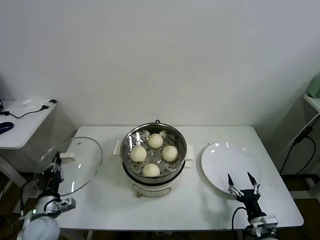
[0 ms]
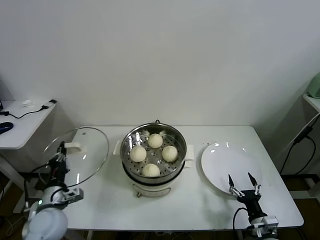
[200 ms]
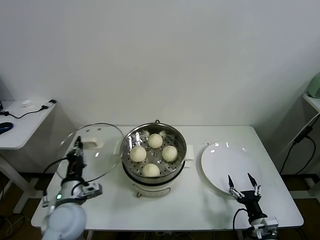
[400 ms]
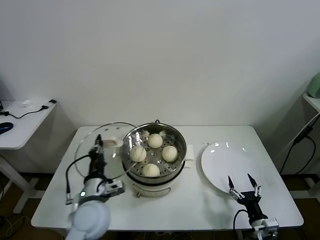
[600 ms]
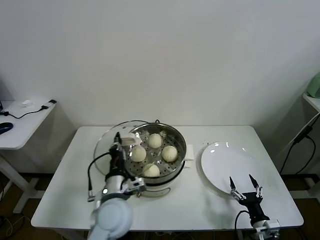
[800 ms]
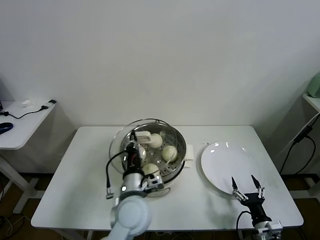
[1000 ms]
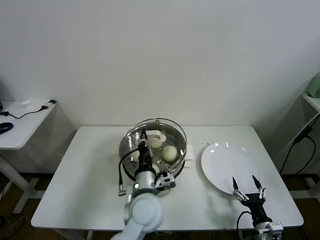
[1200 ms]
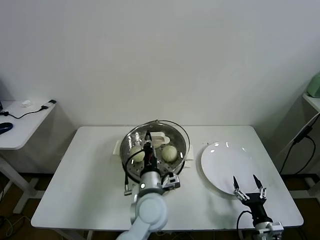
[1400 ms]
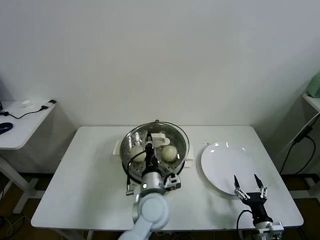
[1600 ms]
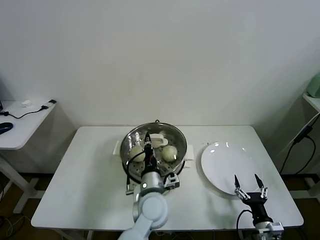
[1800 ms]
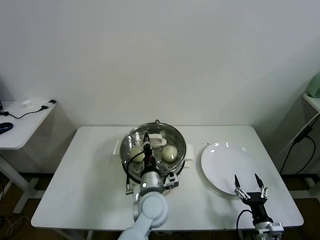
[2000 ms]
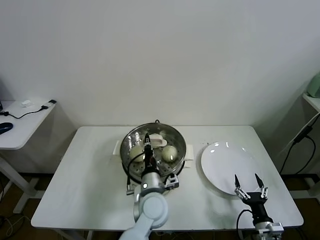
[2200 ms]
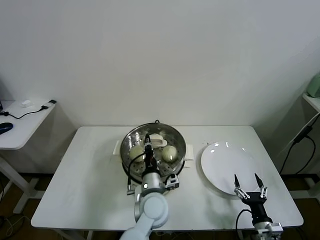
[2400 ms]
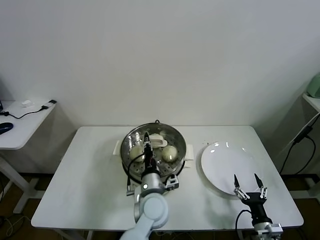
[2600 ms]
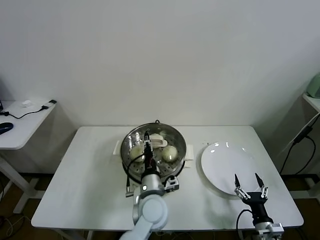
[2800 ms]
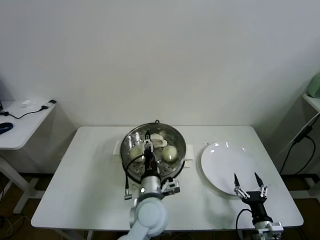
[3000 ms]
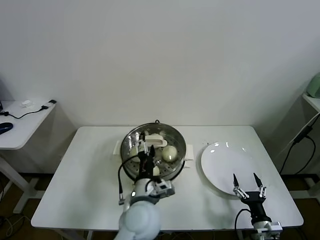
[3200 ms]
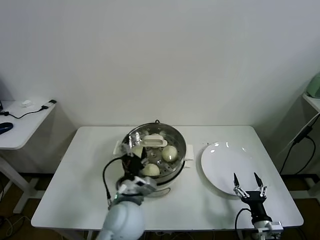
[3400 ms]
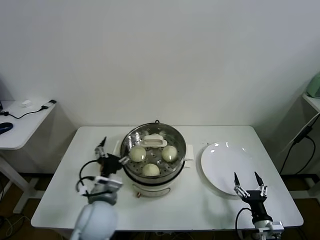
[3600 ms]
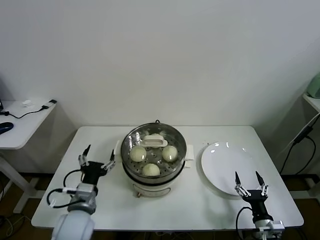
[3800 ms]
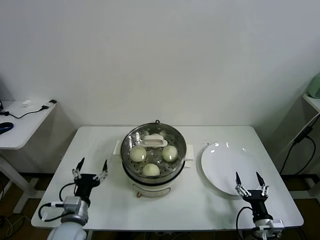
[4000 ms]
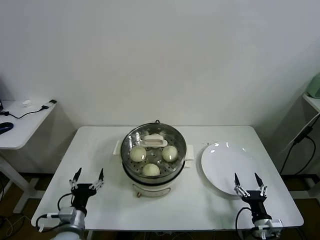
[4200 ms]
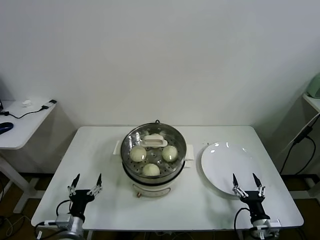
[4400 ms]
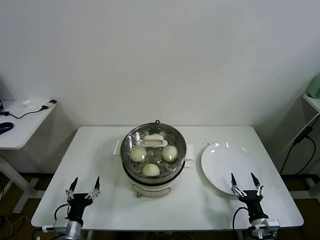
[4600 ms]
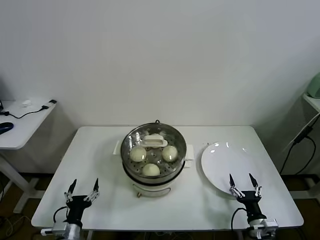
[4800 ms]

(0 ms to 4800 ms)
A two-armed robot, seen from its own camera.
Task of the whole recording: take steamed baozi put them in steamer.
Step, 0 ms - 2800 ms: Place the pot lid on the steamer with left gripper.
0 ms - 1600 ms: The left gripper travels to the right by approximately 35 cm.
1600 ms - 3200 ms: The left gripper opens.
3200 ms - 4800 ms: The left gripper goes about 30 cm to the left and downward.

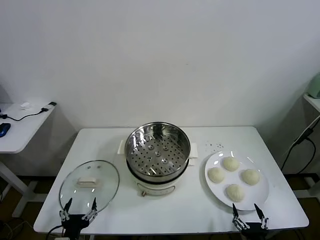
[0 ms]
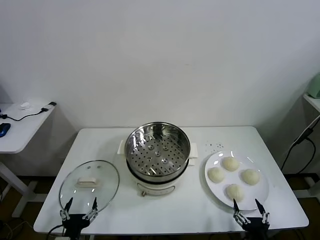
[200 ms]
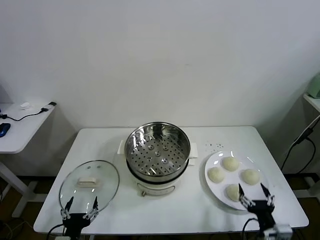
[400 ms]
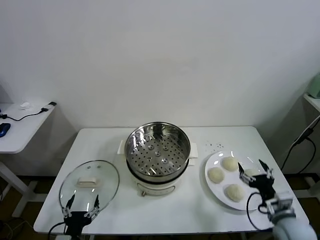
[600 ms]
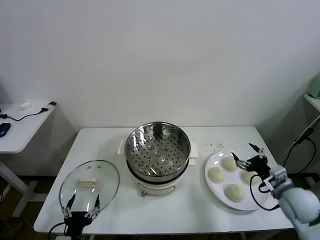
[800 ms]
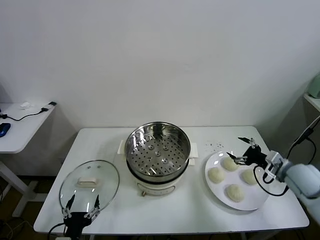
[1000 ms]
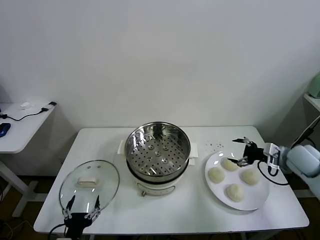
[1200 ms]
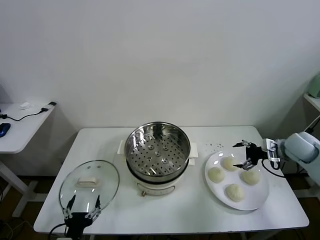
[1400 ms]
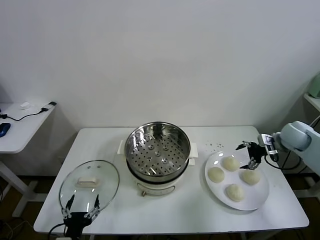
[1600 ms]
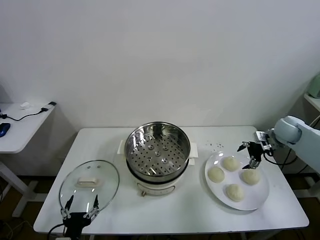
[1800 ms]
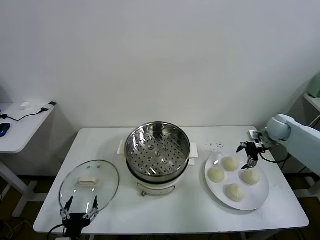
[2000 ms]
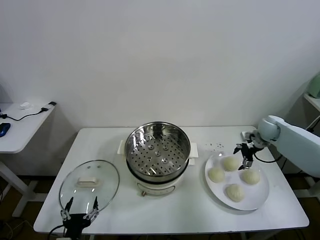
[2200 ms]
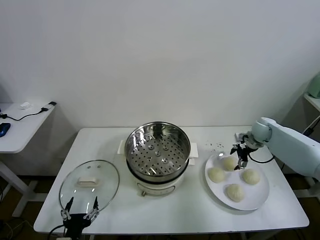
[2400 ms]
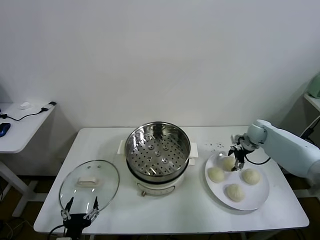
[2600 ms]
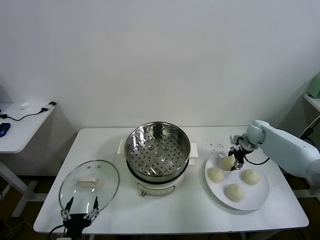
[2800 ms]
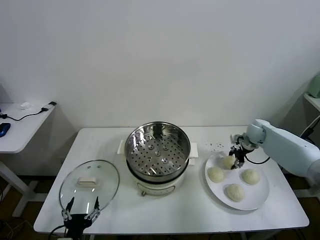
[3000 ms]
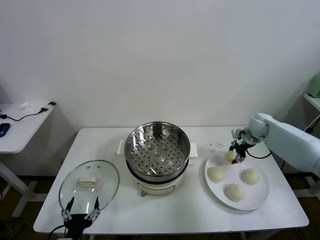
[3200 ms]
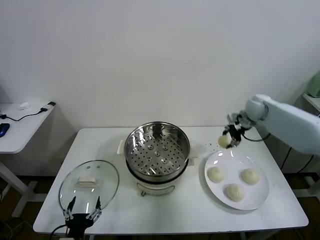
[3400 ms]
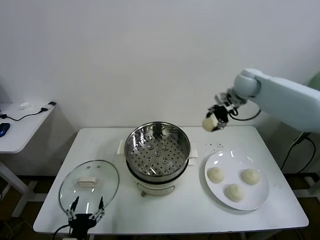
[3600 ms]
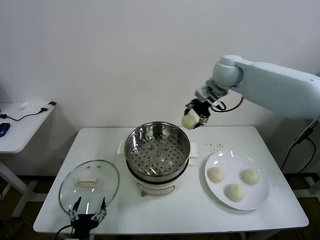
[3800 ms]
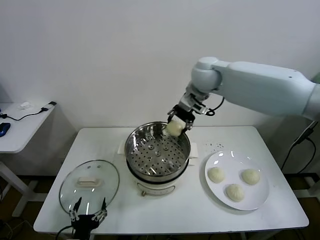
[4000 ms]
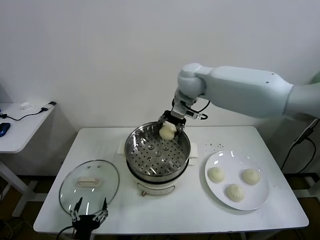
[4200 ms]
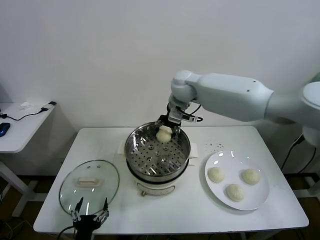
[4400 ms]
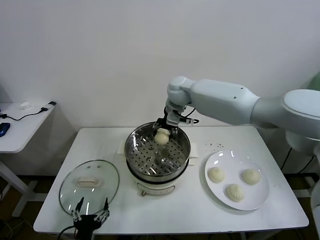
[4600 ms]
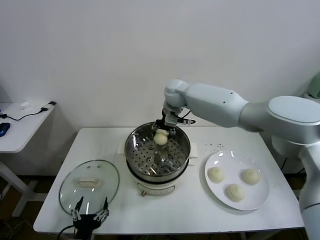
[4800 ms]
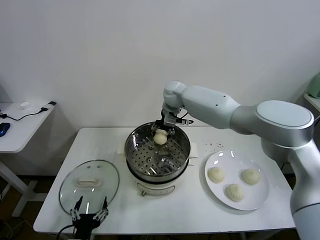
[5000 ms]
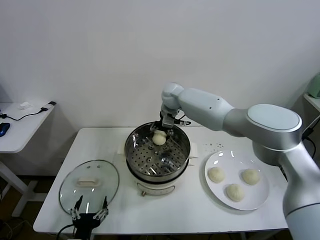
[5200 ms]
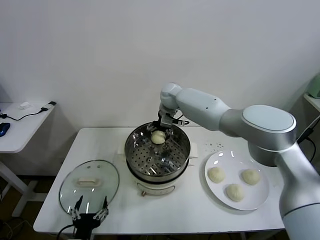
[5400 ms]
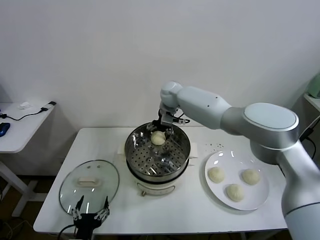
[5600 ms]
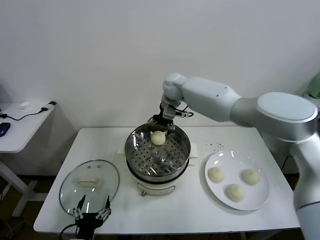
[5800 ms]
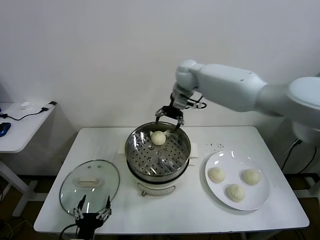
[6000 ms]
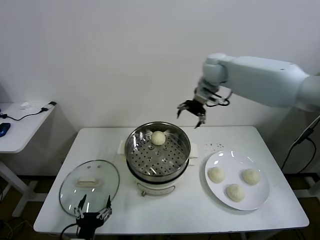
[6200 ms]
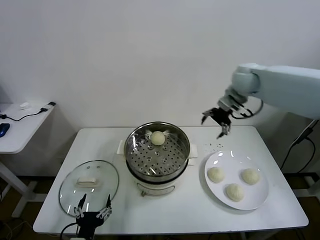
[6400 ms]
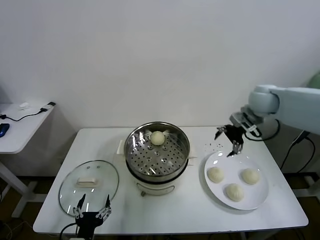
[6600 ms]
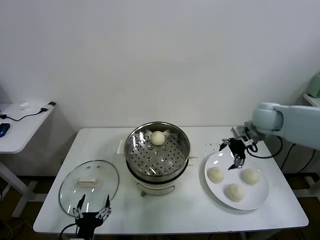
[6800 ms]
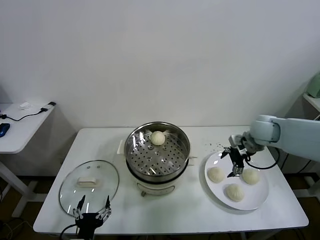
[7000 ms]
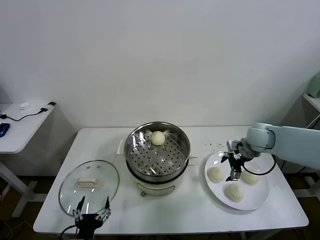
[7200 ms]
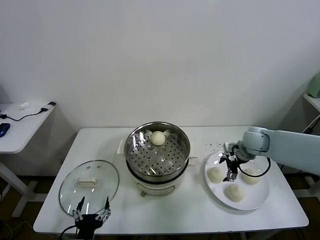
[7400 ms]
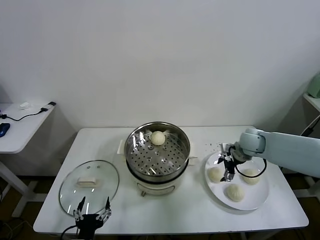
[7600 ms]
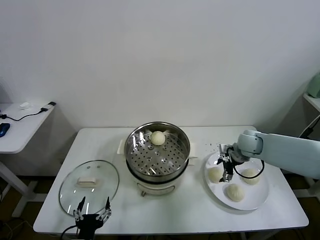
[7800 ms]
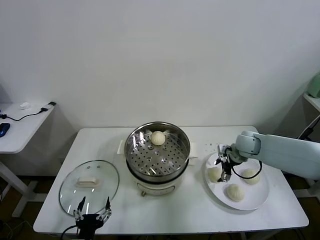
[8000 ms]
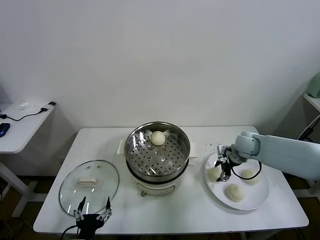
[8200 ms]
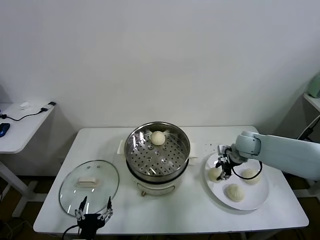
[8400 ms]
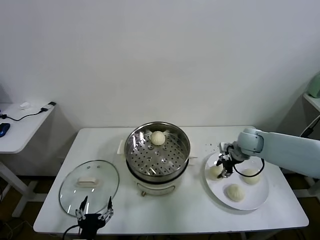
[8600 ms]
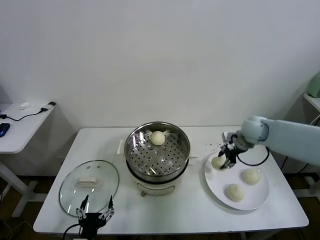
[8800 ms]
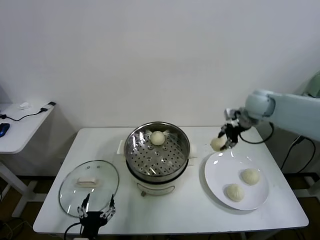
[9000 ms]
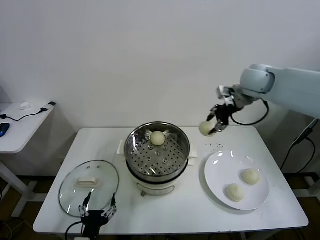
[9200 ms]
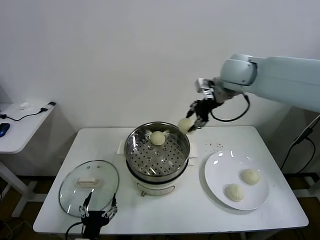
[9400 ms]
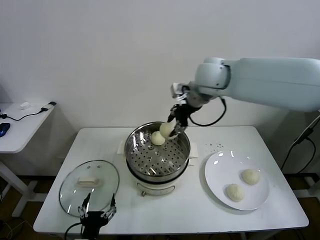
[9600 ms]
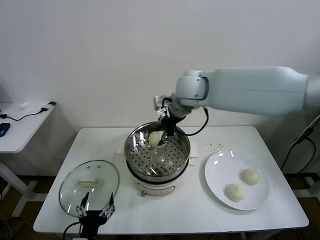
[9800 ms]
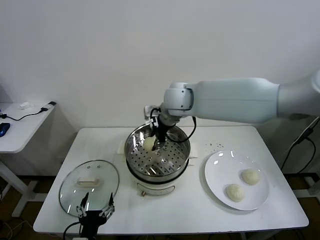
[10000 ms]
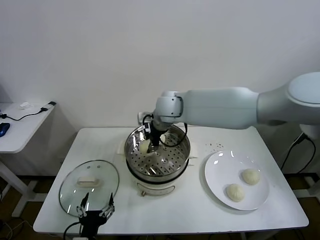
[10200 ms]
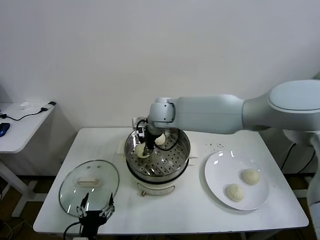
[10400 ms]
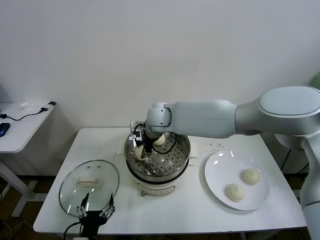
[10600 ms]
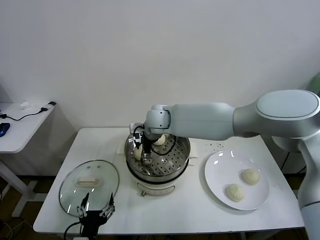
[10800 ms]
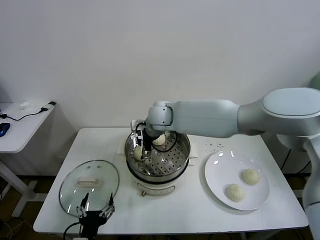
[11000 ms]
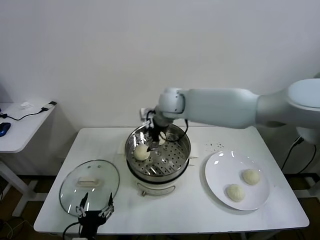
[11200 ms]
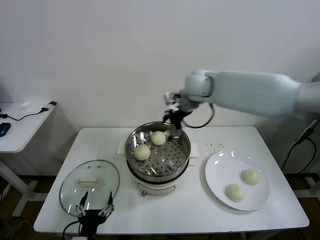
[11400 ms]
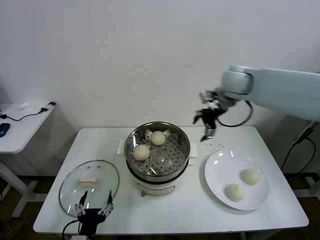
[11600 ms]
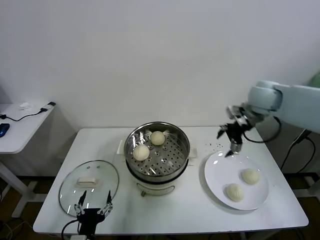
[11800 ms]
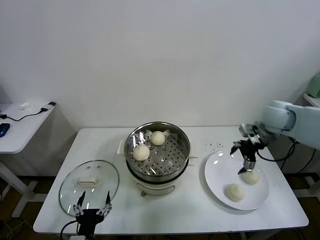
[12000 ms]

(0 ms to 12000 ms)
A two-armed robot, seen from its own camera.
Task of the whole recording: take steamed baozi put them in steamer.
Step, 0 ms - 2600 ms: Grasp the baozi in the plate with right gripper.
Step, 2800 ms - 5400 ms: Place the baozi on the steamer with right gripper.
Step, 5600 ms - 8200 ms: Grasp the baozi in the plate with right gripper.
Step, 8400 ms - 10800 ms: Place the baozi on the steamer with right gripper.
1600 ms - 3000 ms: The right gripper moves forward, to the left and downward, about 10 cm, and closes its fingers.
3000 ms - 4400 ms: The right gripper travels to the left and upward by about 40 cm.
4400 ms - 6000 ms: The right gripper travels to the right by some 5 cm, and opens up.
6000 ms - 7600 ms: The right gripper moves downward, to the right and backward, some 35 cm.
7600 ms - 9000 ms: The right gripper heads upward, covering approximately 20 cm, and closes up.
9000 ms - 10400 ms: The right gripper shifts roughly 30 cm to the left.
10400 ms - 12000 ms: The right gripper is displaced to the right by roughly 35 cm, and opens its fingers.

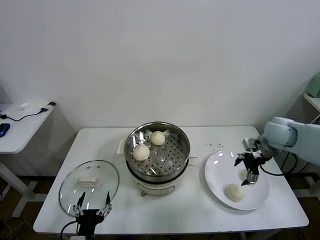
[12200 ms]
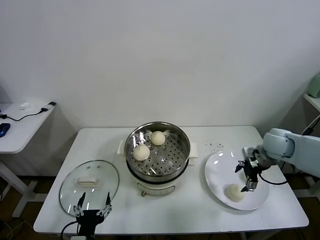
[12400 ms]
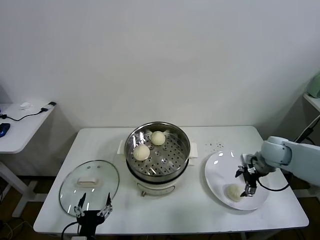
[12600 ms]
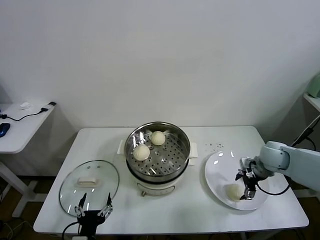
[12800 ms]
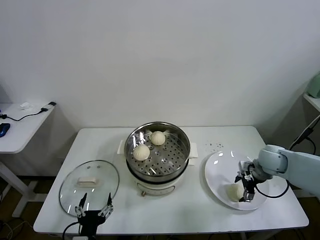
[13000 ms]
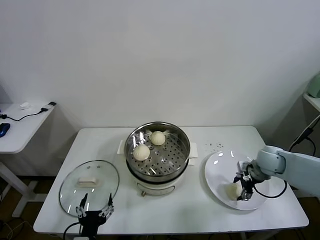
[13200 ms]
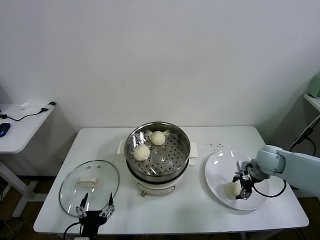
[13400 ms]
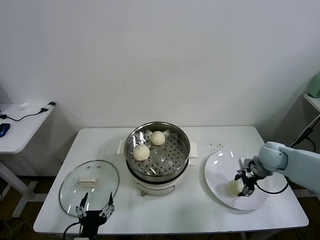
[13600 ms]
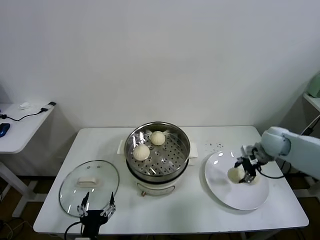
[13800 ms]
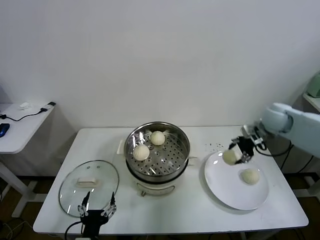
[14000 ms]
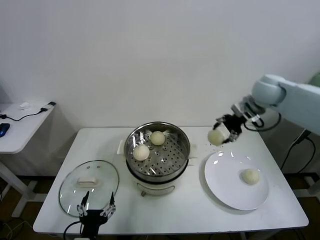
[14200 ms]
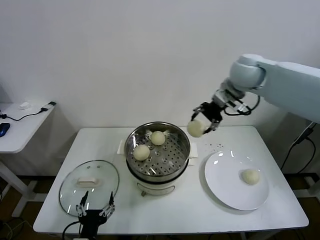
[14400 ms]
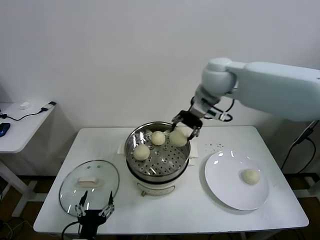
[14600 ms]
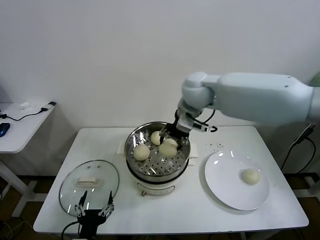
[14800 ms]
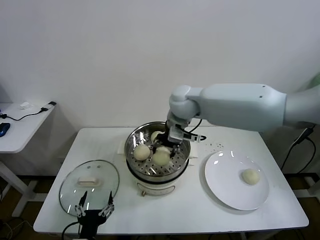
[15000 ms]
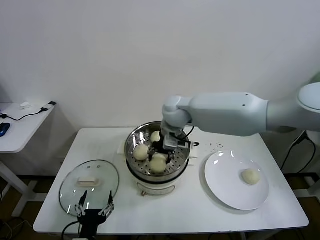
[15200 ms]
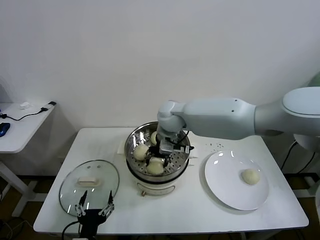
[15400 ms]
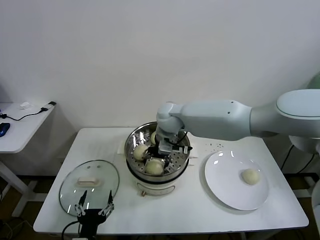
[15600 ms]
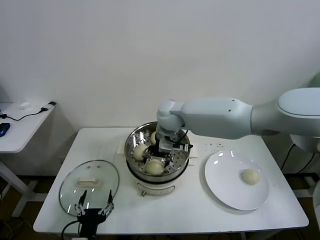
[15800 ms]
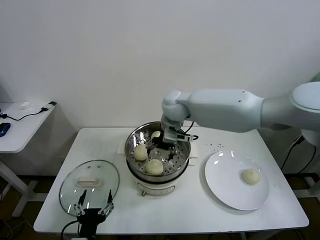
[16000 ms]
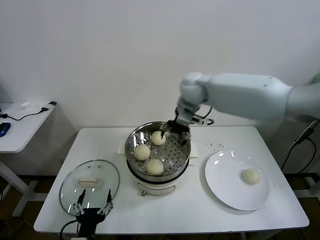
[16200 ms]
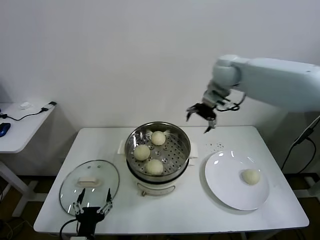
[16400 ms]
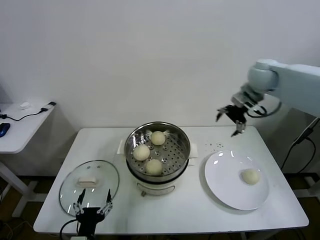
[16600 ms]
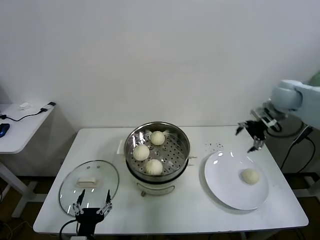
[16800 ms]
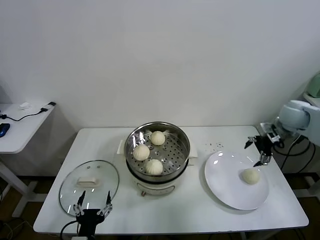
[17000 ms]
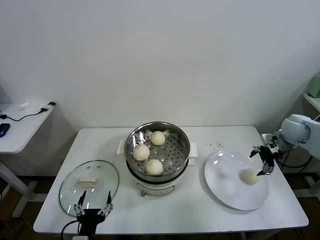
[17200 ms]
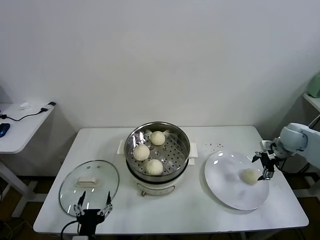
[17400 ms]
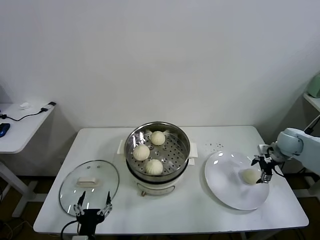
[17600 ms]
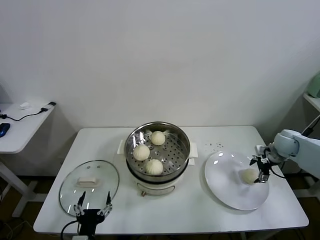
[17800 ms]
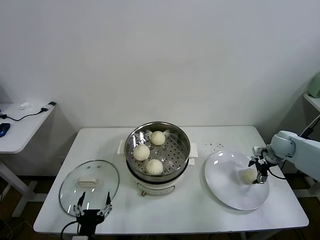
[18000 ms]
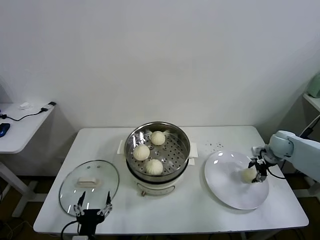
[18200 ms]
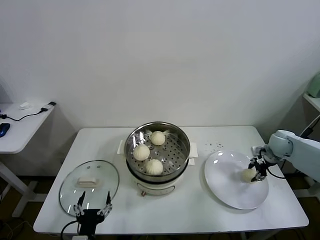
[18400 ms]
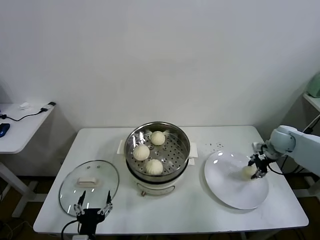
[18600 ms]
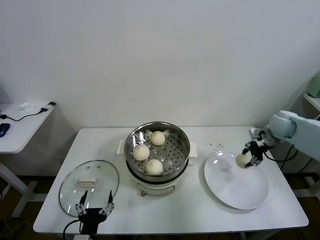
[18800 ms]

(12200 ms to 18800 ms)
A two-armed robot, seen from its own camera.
Task of the whole recording: take steamed baozi put them in steamer.
Step, 12200 ms - 13400 ms: Grasp the baozi in the plate with right gripper.
Step, 13600 ms - 15800 ms: Place the baozi on the steamer with right gripper.
Step, 16000 ms - 18200 ms: Grasp the baozi in the plate with right gripper.
12200 ms - 13800 ms: The right gripper reaches approximately 10 cm downward, then returns, and closes its fingers.
13800 ms - 15400 ms: The right gripper is displaced to the left by roughly 35 cm.
15400 ms - 17200 ms: The right gripper heads to the right, covering about 40 cm, and opens its fingers.
17200 ms - 18800 ms: The right gripper travels downward and back again, roughly 10 cm each way, and closes its fingers.
